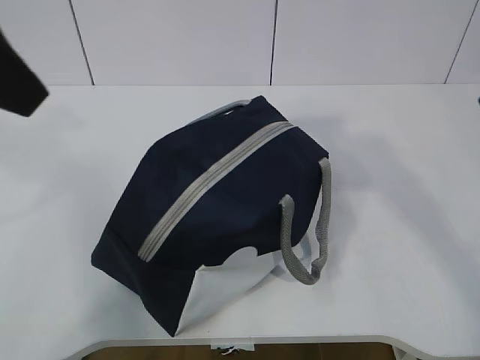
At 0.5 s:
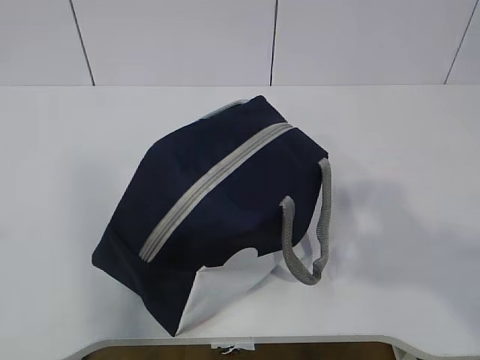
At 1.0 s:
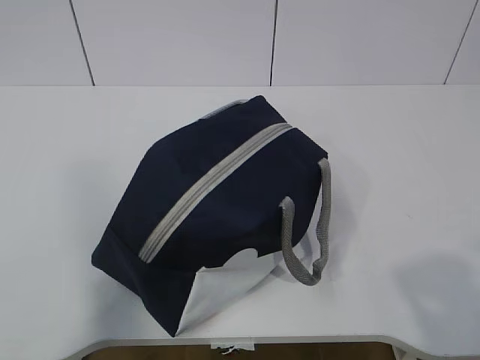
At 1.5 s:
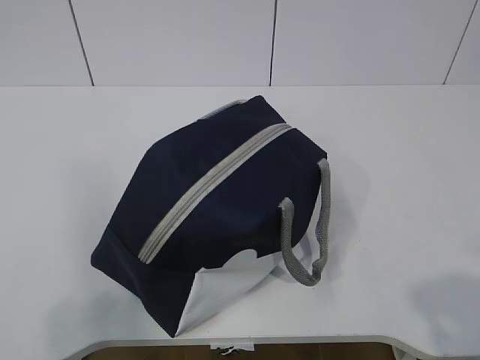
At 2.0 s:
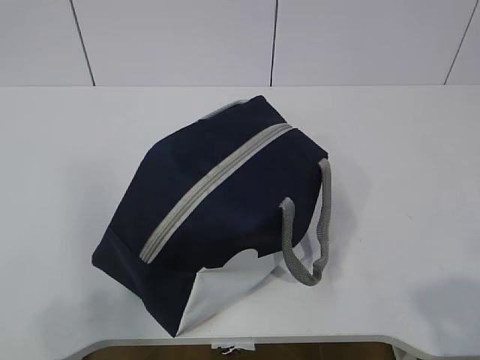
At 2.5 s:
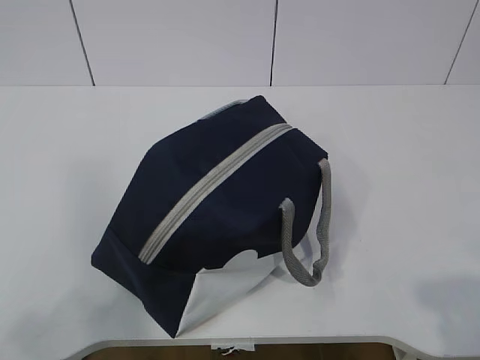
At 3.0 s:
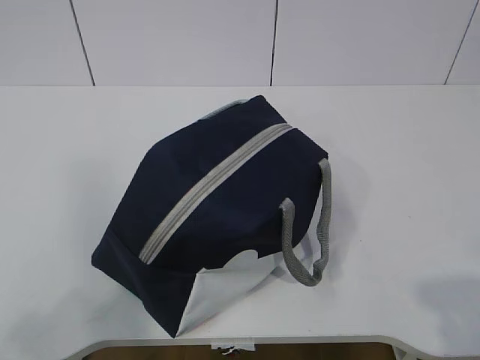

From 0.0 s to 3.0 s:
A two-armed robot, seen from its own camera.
From 0.0 s to 1.5 s: The right gripper is displaced backward and downward by roughly 25 cm. Meanwhile the left gripper shifts roughly 25 cm backward, downward and to the left.

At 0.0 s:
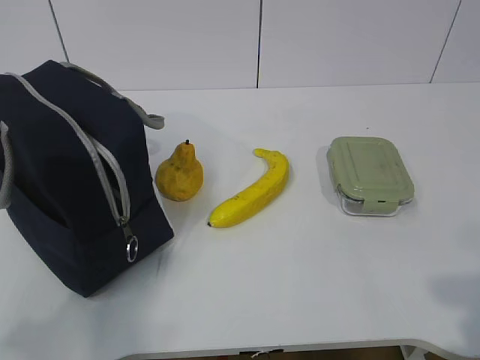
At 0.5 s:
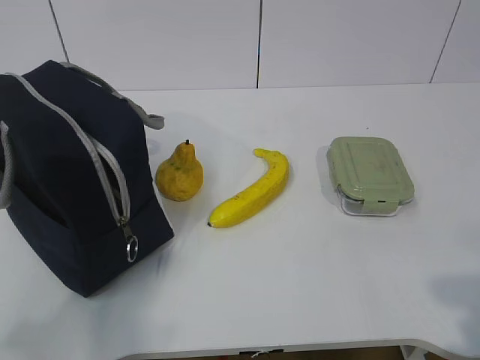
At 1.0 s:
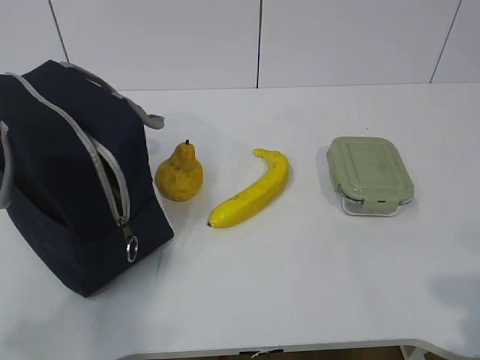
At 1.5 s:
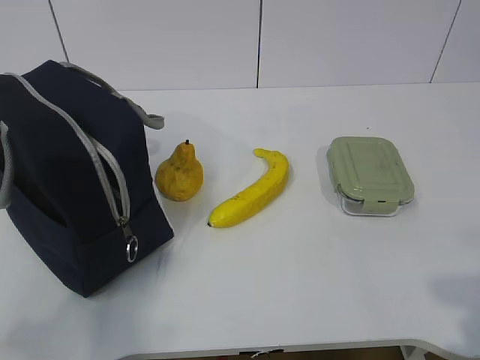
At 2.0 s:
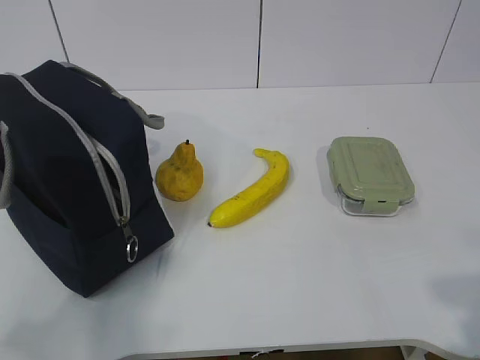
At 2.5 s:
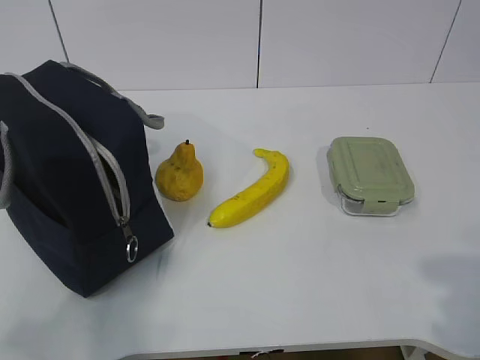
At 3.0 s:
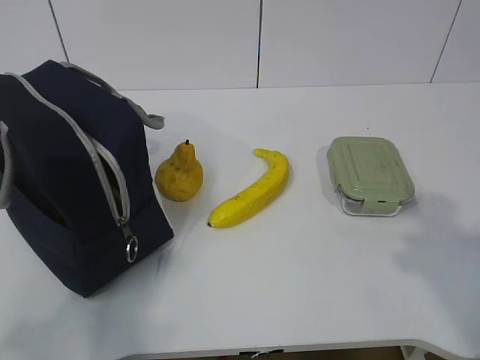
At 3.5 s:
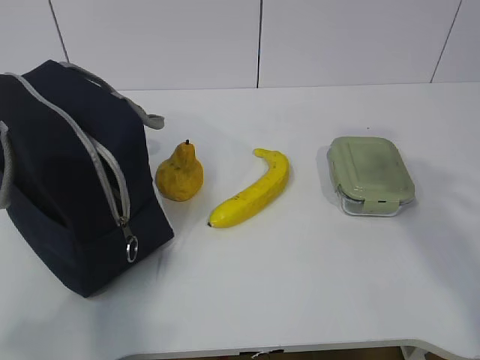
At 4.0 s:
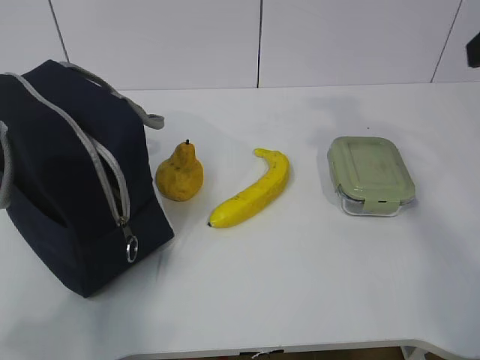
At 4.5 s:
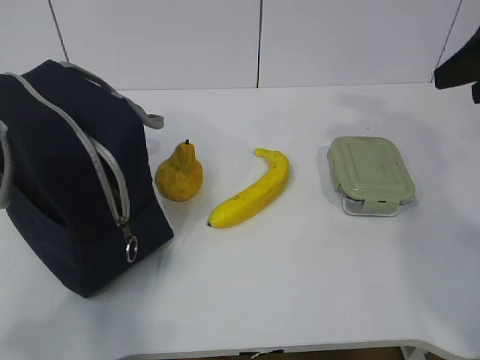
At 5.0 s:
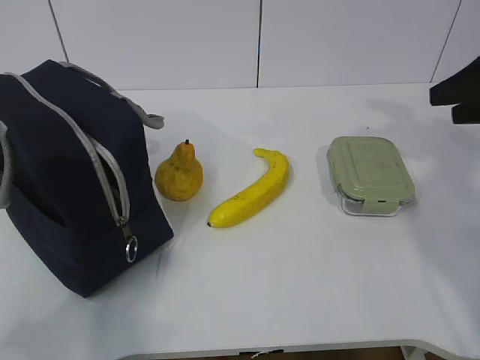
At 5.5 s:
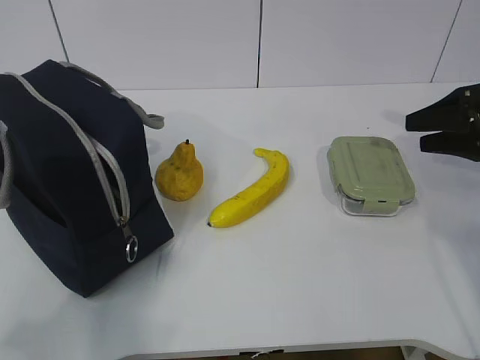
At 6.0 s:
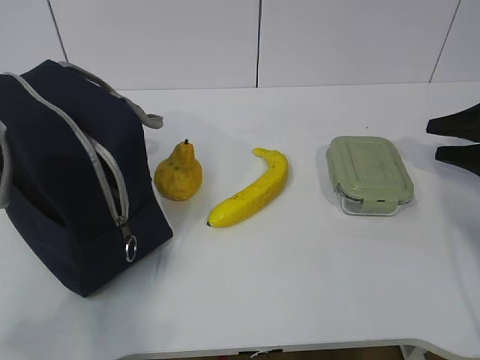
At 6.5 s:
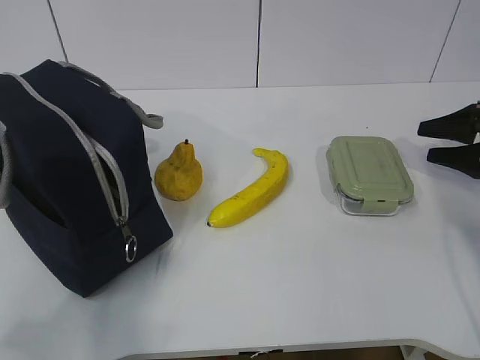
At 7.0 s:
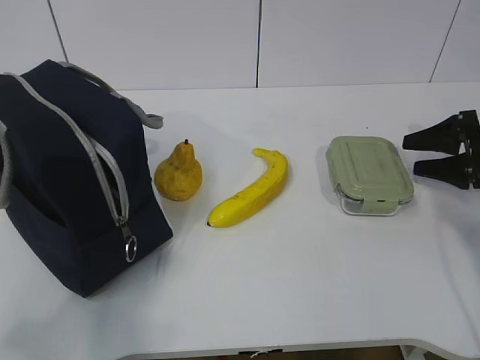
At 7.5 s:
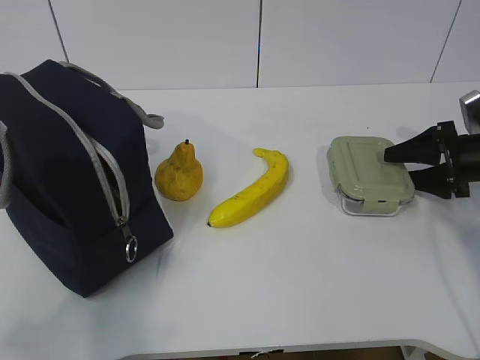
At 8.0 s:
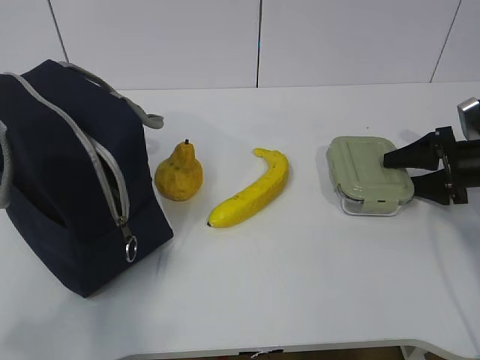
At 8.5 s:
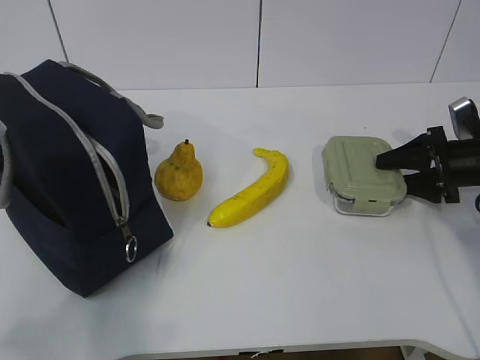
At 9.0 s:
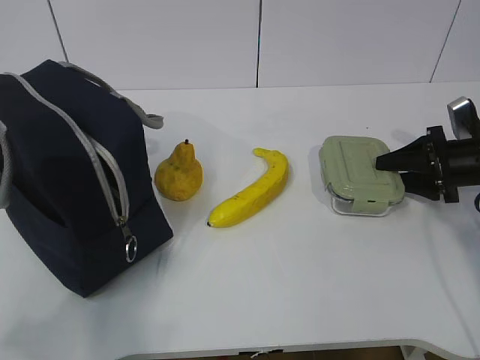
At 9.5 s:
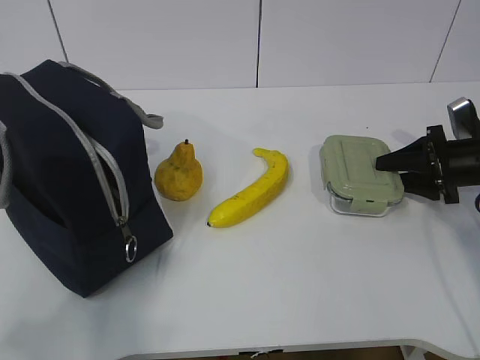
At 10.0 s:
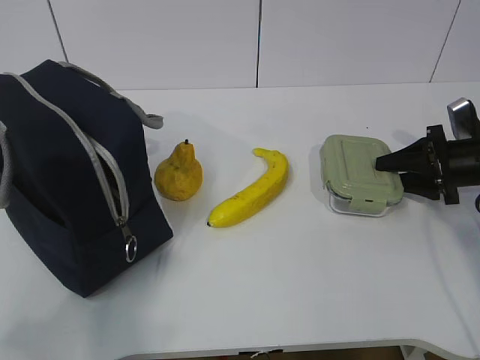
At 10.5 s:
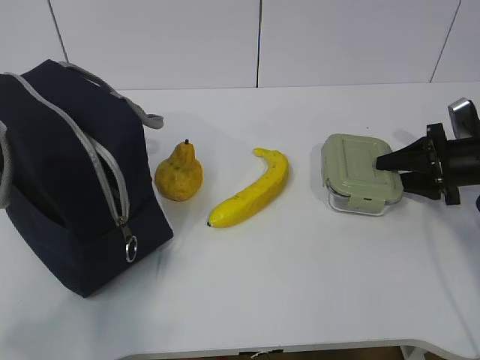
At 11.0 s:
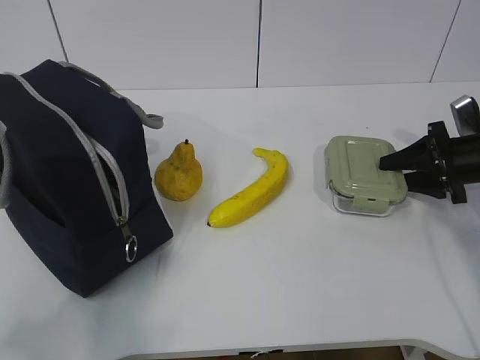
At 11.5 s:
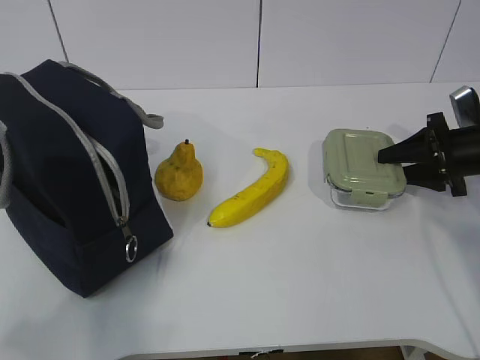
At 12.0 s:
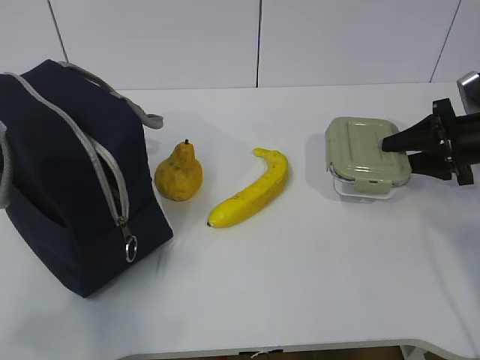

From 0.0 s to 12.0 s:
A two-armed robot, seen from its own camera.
Step, from 0.0 s to 7.0 s: Grab the lunch box with your right hand.
From 2.0 s to 4.0 s: The right gripper travels forward and upward by approximately 30 cm.
From 4.0 s to 6.0 s: The right gripper shifts roughly 30 cm downward, to the right and forward.
From 6.0 s to 8.0 s: The right gripper ends up about 5 cm from where it was.
From 8.0 s to 10.0 s: The right gripper closes its fingers.
From 10.0 s to 12.0 s: The grippers move only a little.

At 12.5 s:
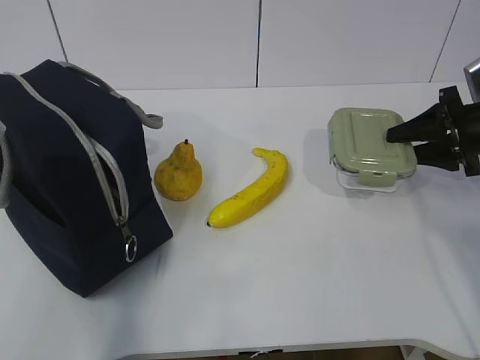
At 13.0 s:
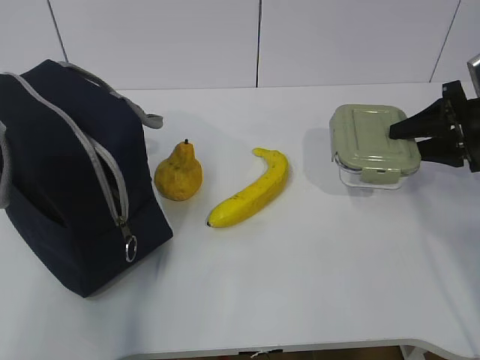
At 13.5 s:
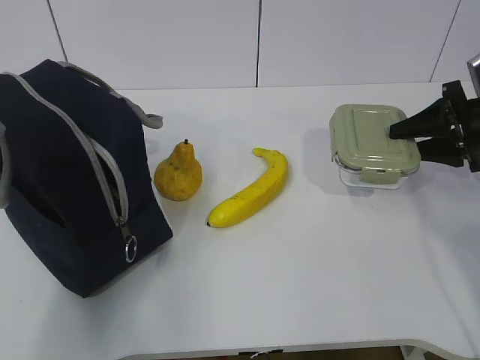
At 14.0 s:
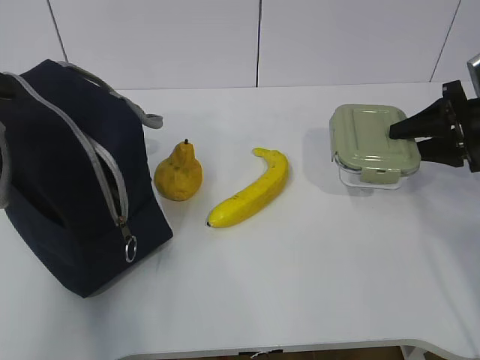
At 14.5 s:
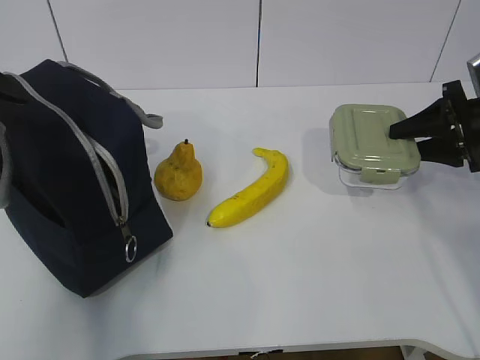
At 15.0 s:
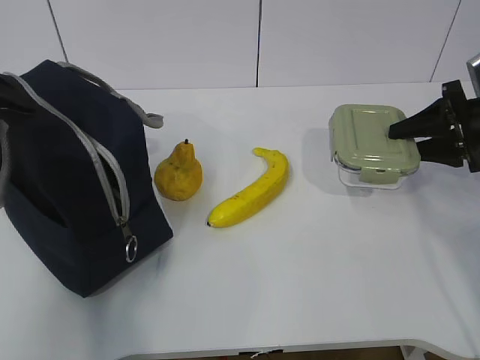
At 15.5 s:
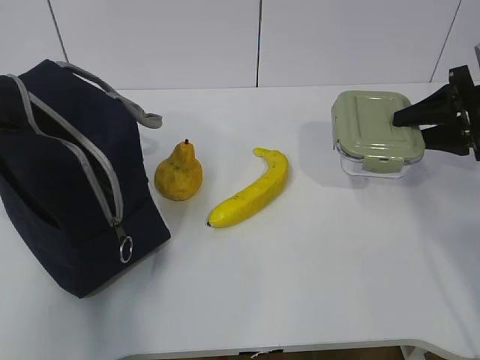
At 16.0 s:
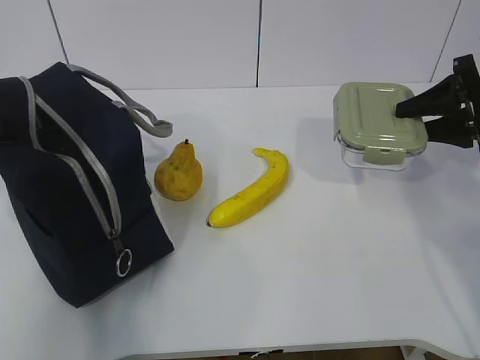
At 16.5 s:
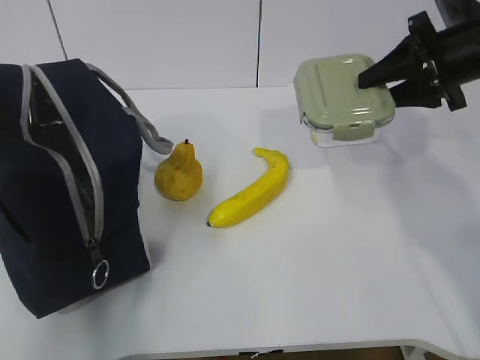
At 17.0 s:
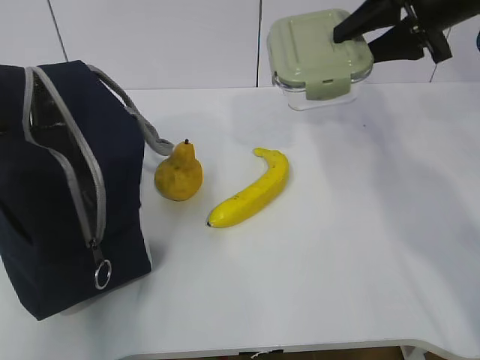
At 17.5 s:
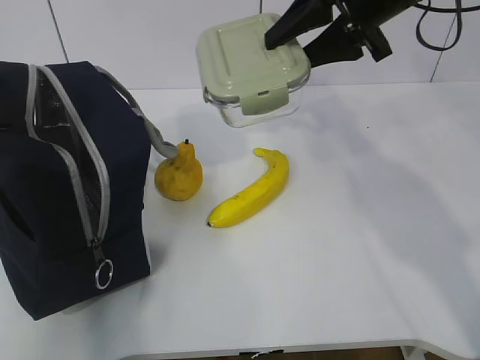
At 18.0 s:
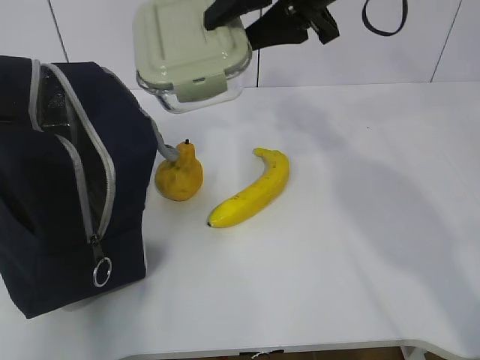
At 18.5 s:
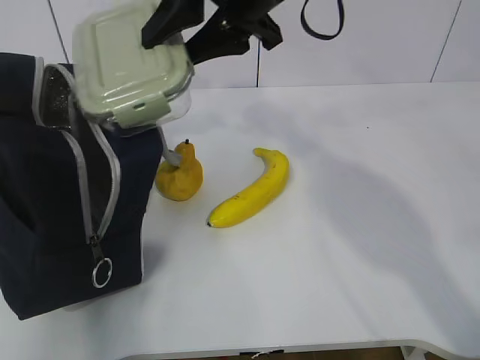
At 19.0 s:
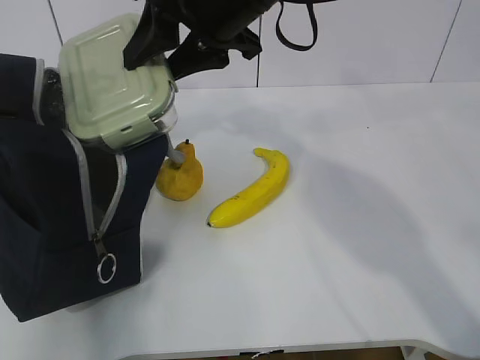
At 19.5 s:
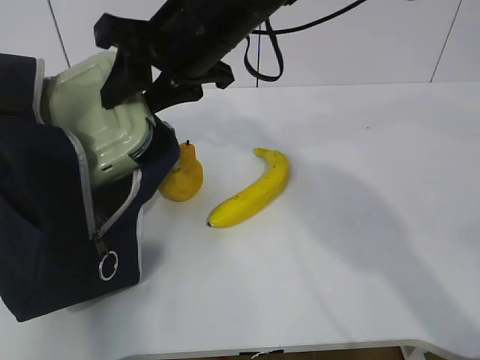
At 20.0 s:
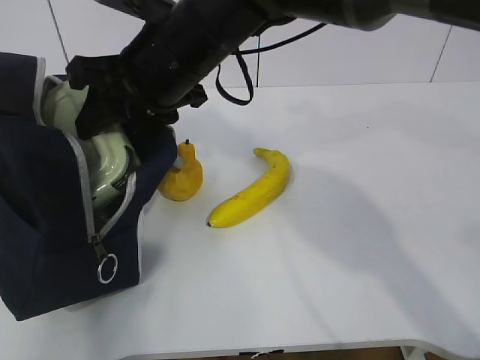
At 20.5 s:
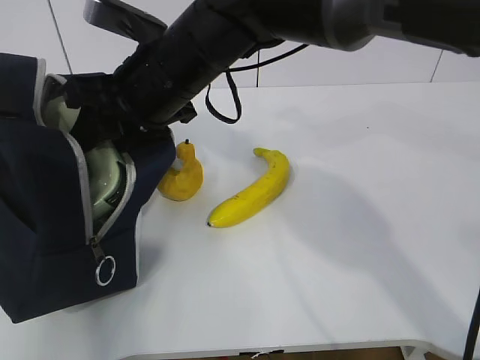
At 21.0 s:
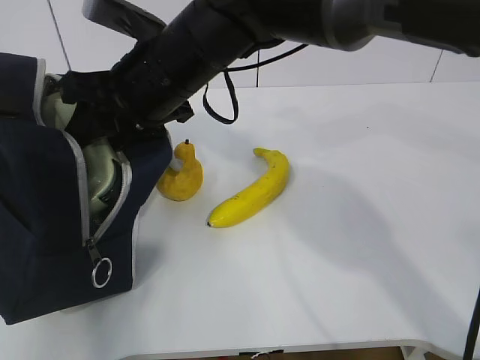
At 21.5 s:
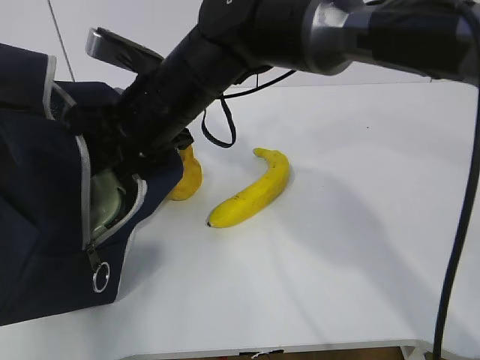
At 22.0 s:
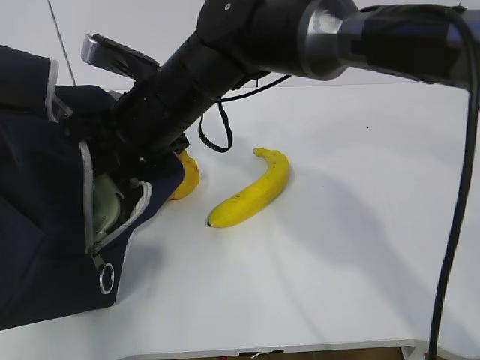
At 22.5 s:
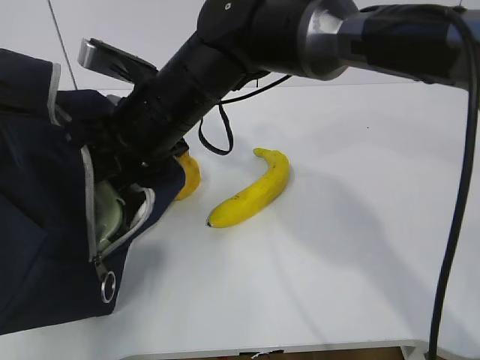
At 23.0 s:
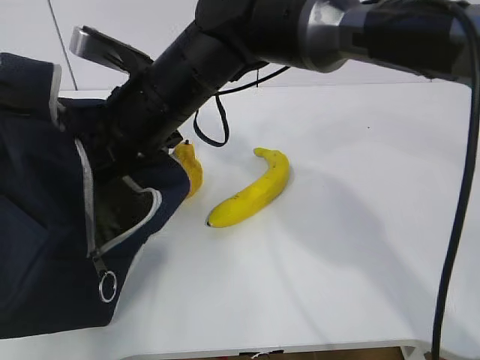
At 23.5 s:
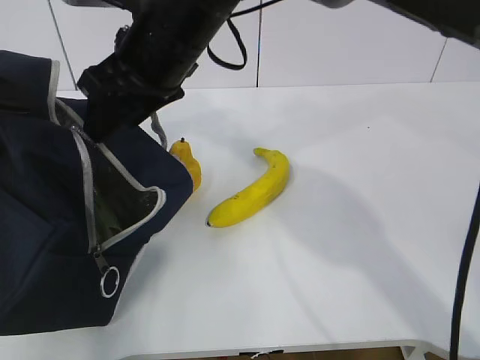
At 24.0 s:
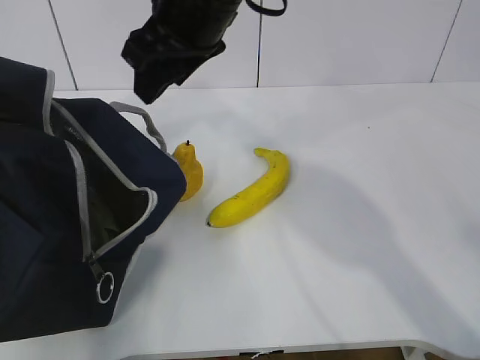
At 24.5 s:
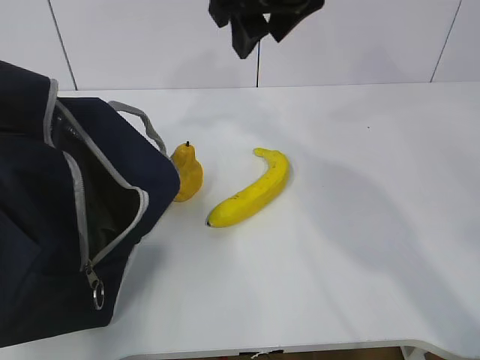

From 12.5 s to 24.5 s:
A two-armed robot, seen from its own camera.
Step, from 12.5 s to 15.0 s: Grab the lunch bag with your left hand.
Step, from 16.0 s to 19.0 s: Place it into the bag with your right hand.
From 12.5 s to 14.5 s: The left gripper travels forward by approximately 25 cm.
From 14.5 s to 16.5 s: The left gripper closes its fingers. Meanwhile the right gripper shifts some 10 cm upward and to the left.
From 16.5 s to 18.5 s: The right gripper goes some 25 cm to the left.
From 18.5 s to 20.5 s: The right gripper goes about 15 cm to the left and downward.
From 22.5 s to 24.5 s: The right gripper heads upward and to the right, covering roughly 15 cm.
